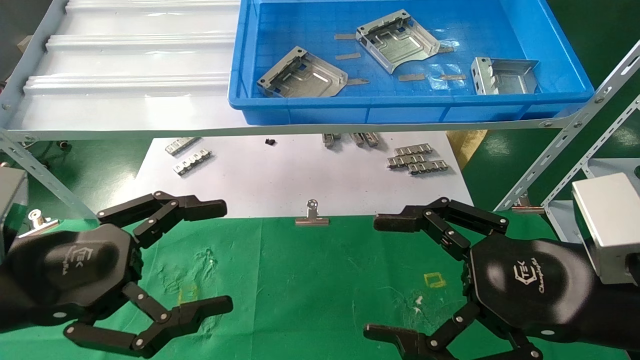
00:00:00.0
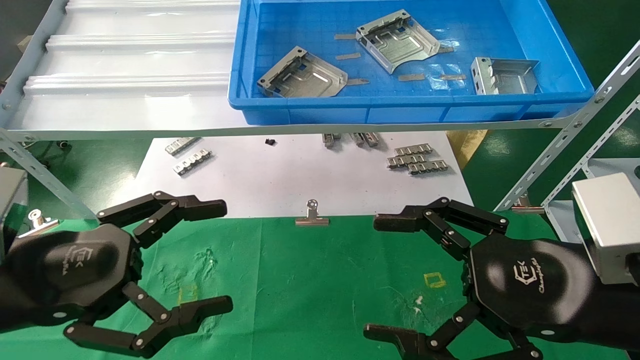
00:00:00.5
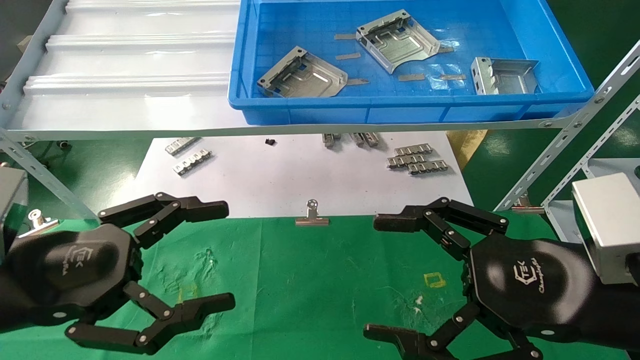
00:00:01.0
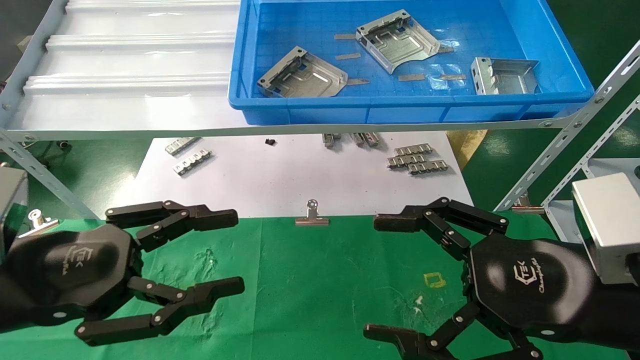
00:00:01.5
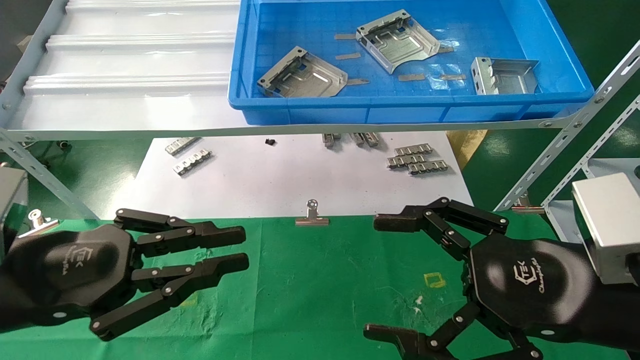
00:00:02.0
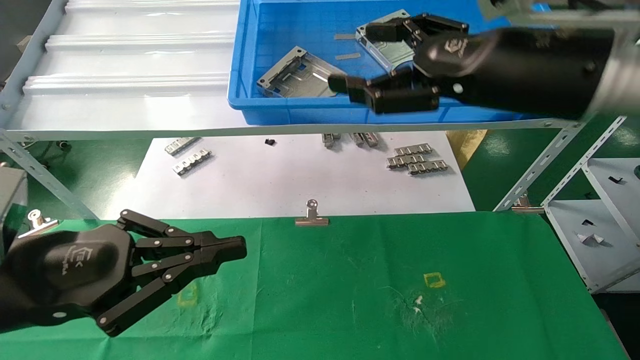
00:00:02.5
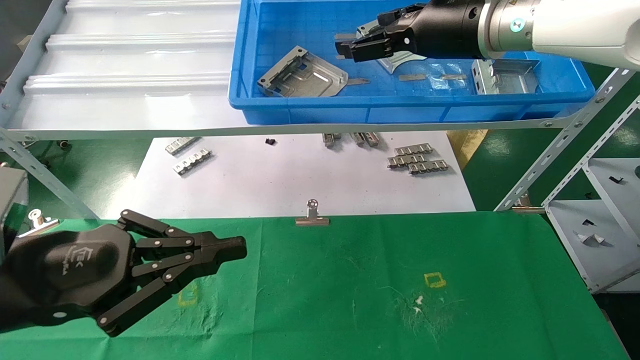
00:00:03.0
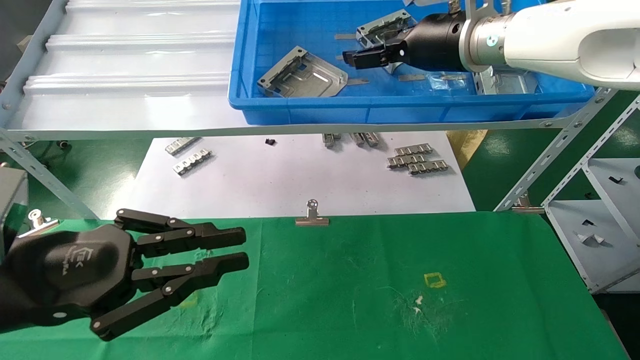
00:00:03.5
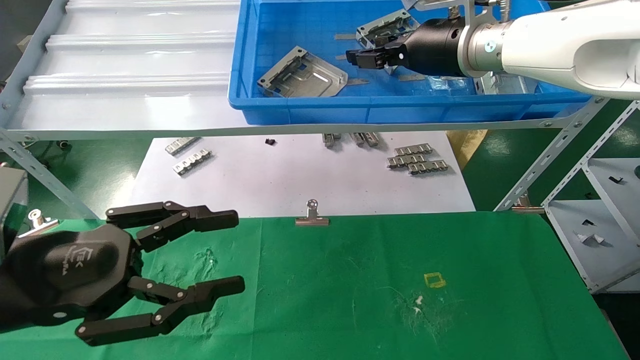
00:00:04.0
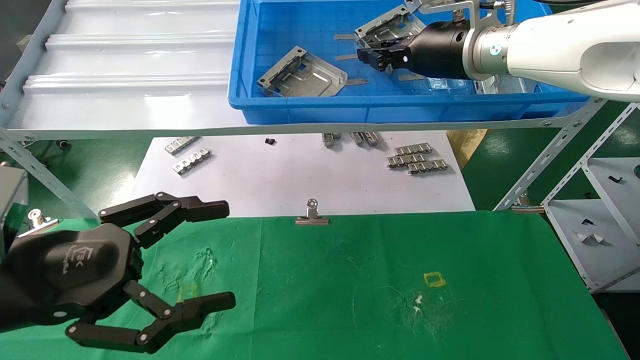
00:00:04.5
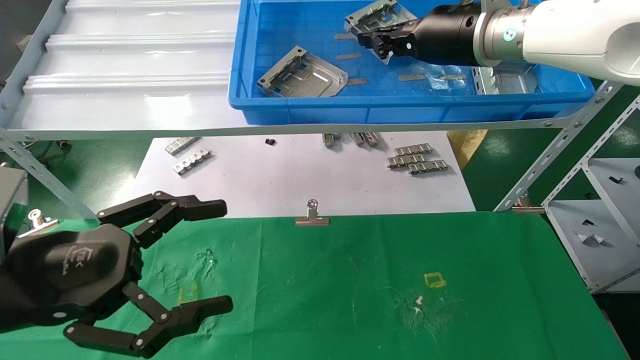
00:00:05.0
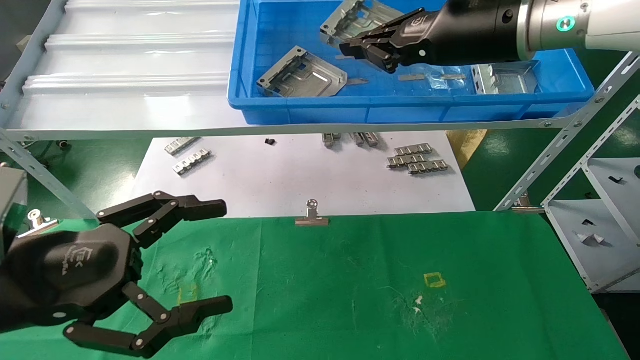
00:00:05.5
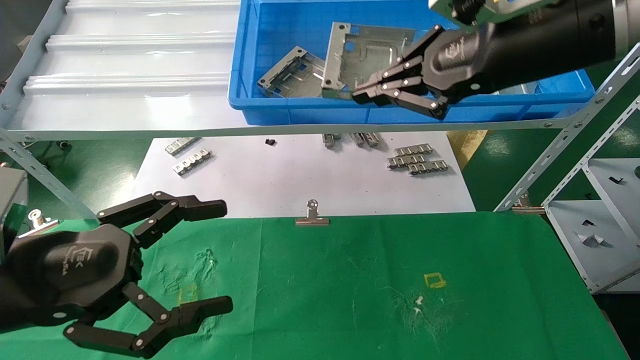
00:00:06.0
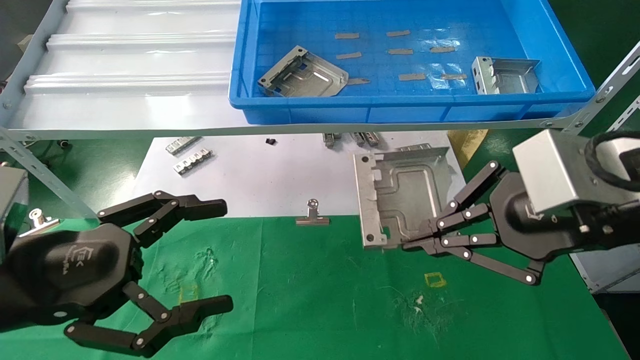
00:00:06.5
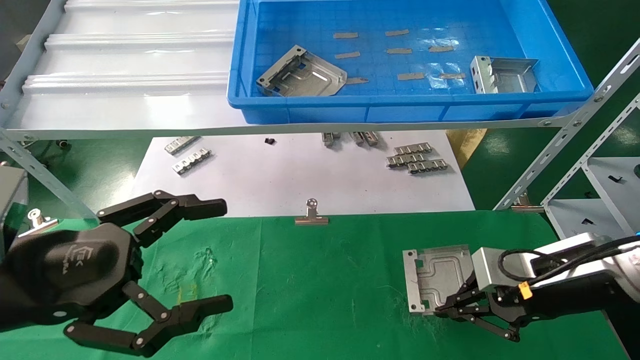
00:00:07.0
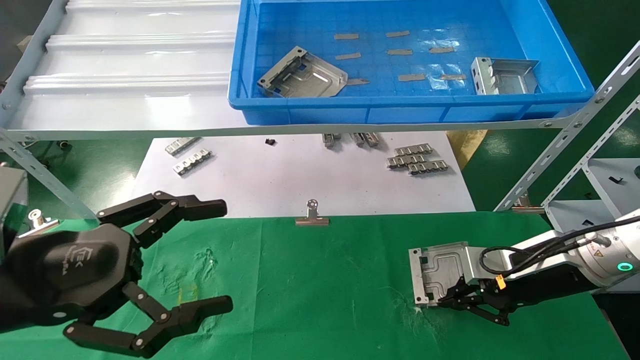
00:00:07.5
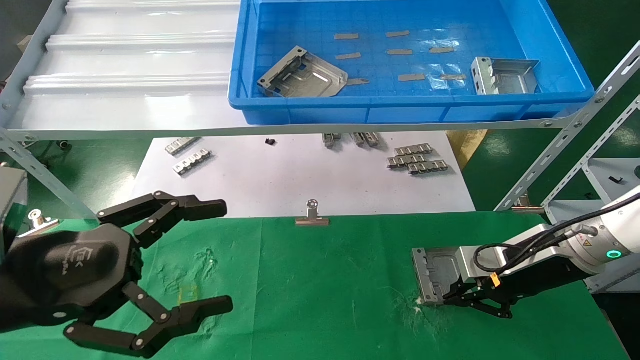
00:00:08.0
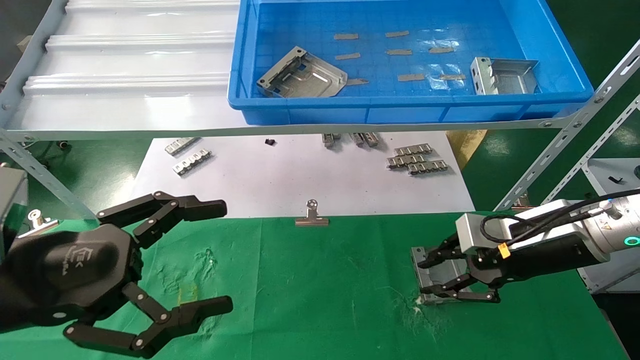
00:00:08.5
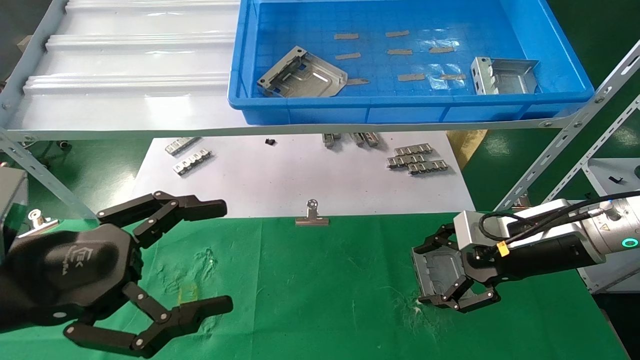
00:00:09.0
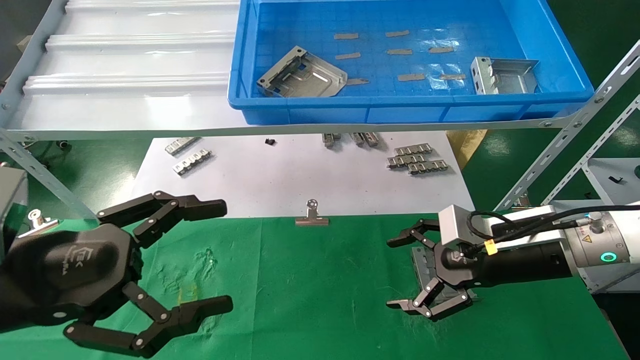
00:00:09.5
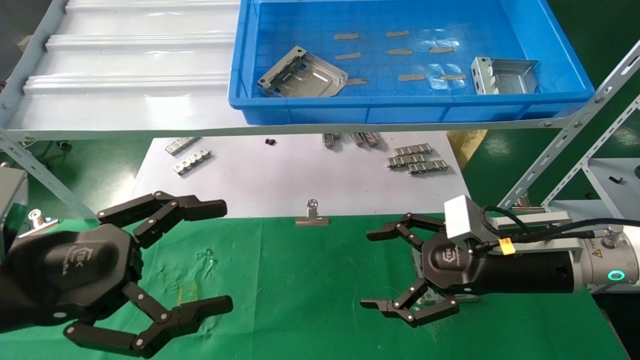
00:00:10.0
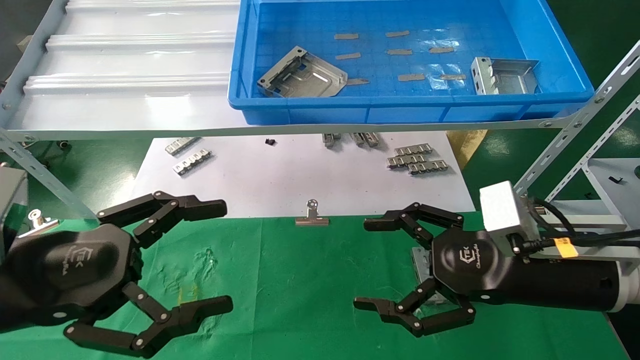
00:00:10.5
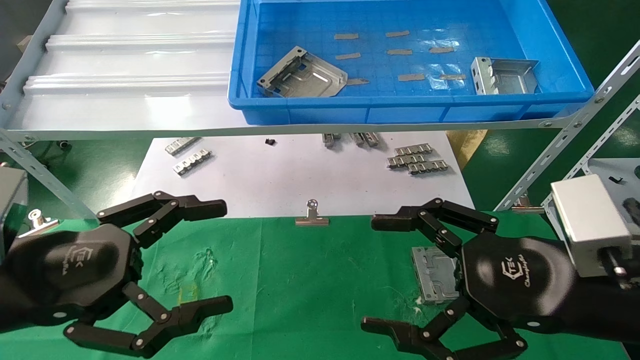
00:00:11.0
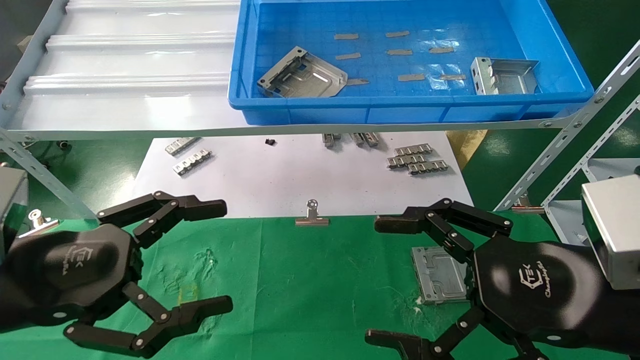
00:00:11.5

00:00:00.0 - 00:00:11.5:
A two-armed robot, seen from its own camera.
Task of the whole recording: use the mechanical arm to pick up the parts and place them on the table.
Step, 00:00:02.5 - 00:00:04.5: Pick up the hard drive bracket from the feeding area.
Step, 00:00:05.0 - 00:00:08.0: Place the hard drive bracket into the box.
00:00:00.0 - 00:00:02.0: The left gripper closes.
00:00:02.0 - 00:00:04.0: The right gripper heads forward and upward, covering some 30 cm.
00:00:04.0 - 00:00:06.0: The right gripper heads backward, covering about 15 cm, and closes up. Meanwhile the left gripper opens.
00:00:06.0 - 00:00:07.5: The right gripper shifts approximately 25 cm downward.
00:00:07.5 - 00:00:09.5: The right gripper ends up approximately 5 cm from where it was, and opens up.
00:00:09.5 - 00:00:11.5: The right gripper travels backward by approximately 15 cm.
